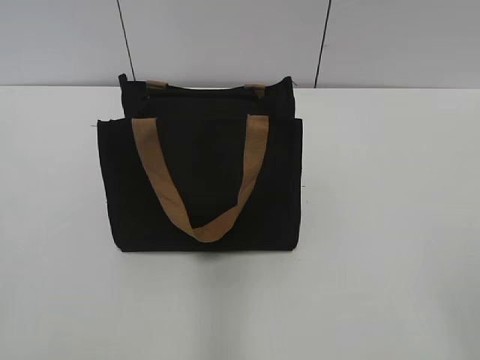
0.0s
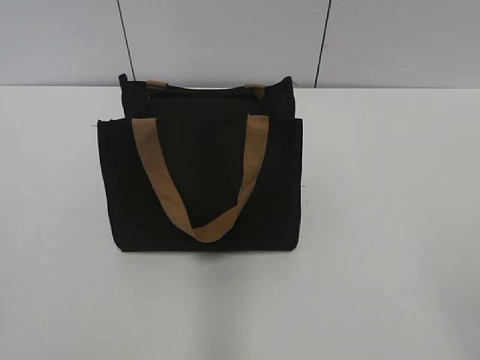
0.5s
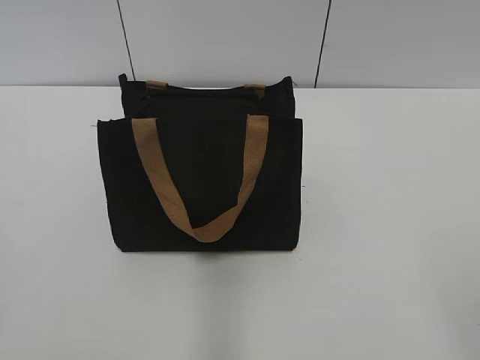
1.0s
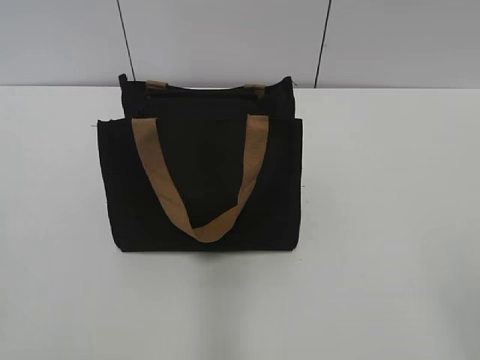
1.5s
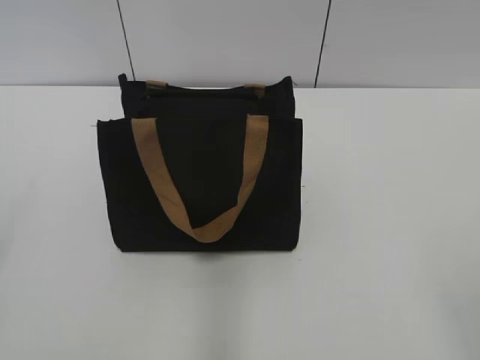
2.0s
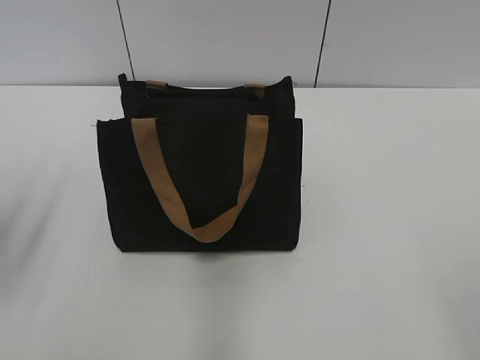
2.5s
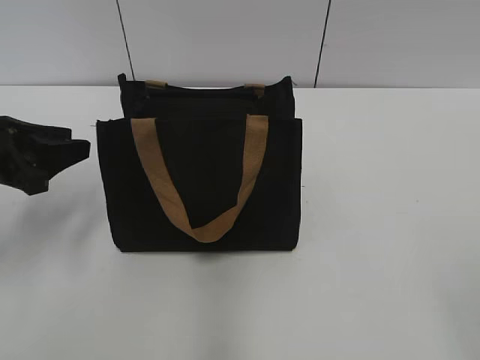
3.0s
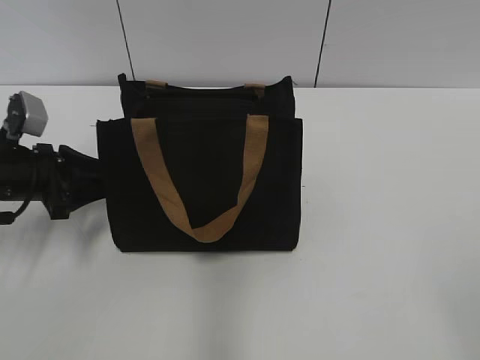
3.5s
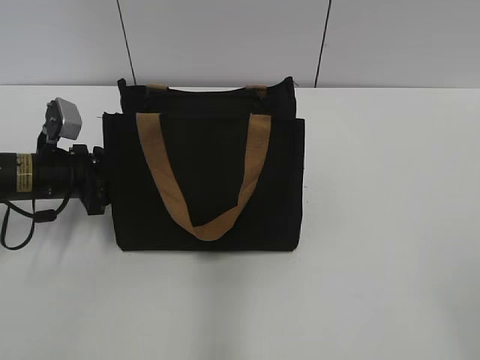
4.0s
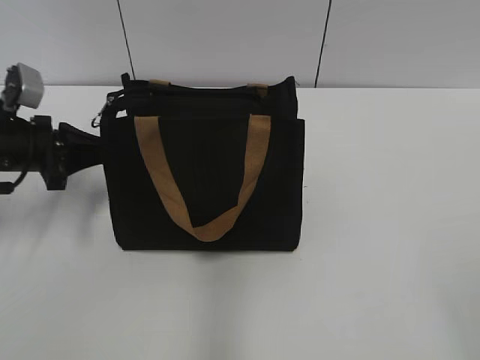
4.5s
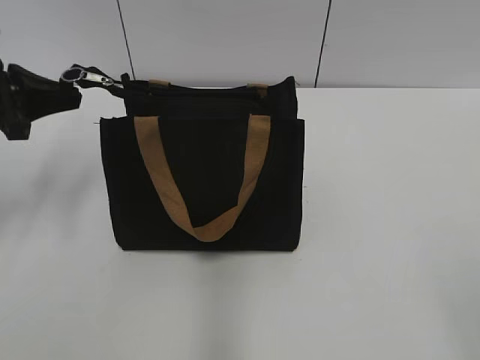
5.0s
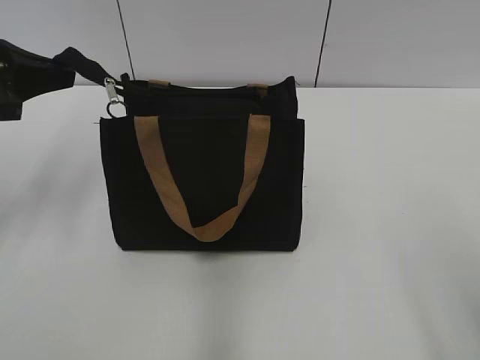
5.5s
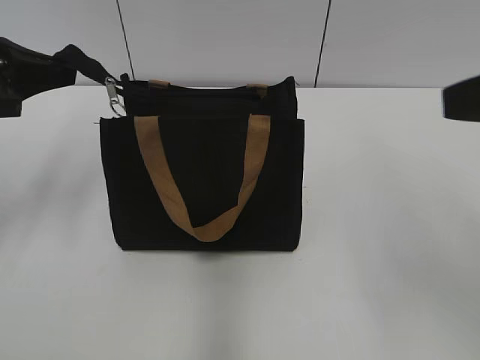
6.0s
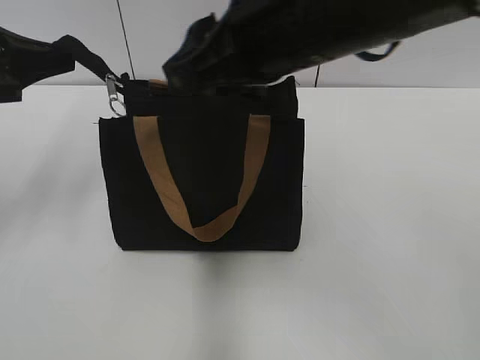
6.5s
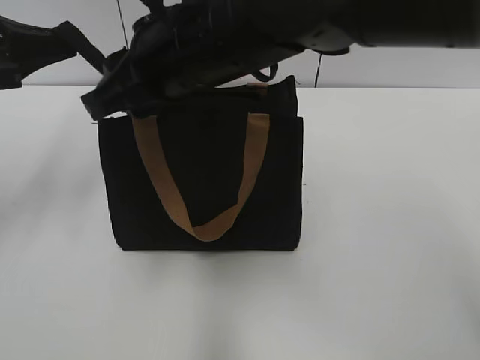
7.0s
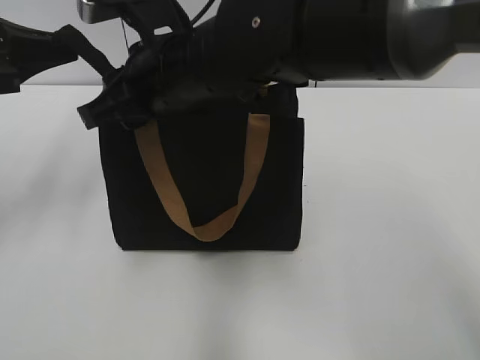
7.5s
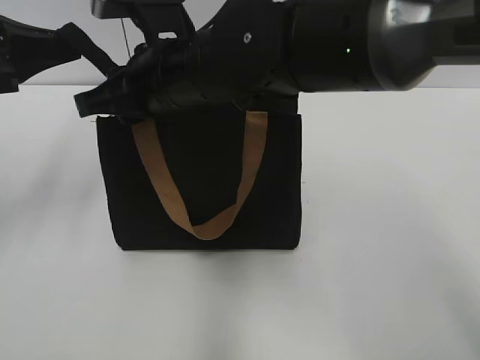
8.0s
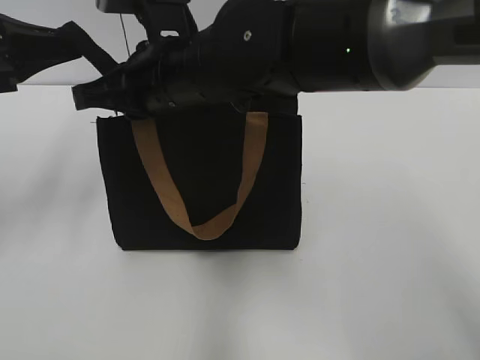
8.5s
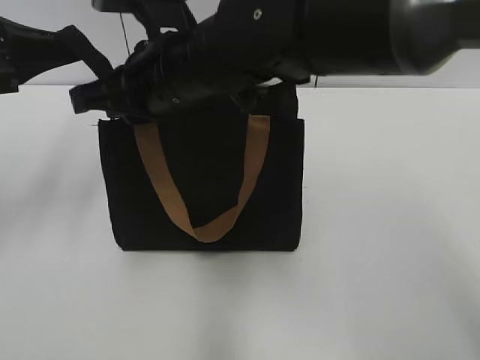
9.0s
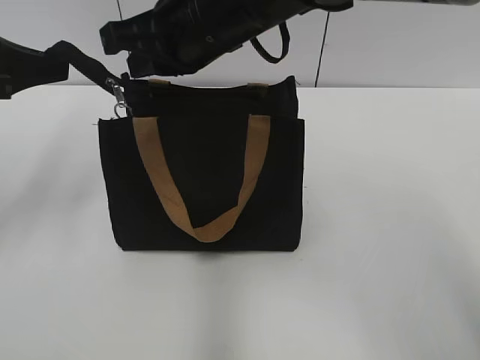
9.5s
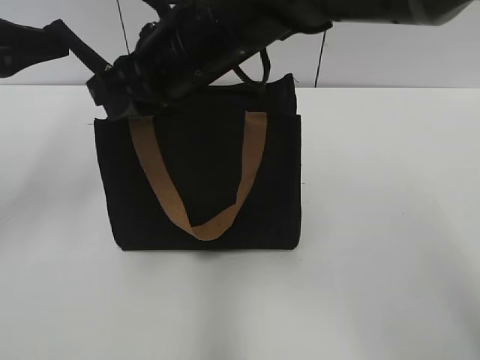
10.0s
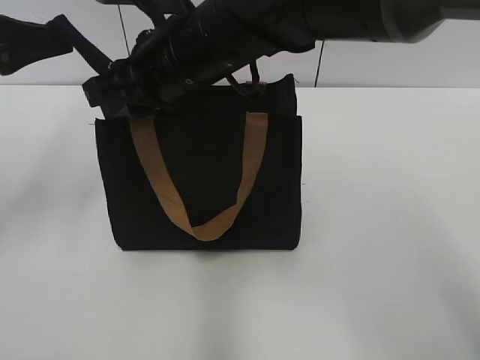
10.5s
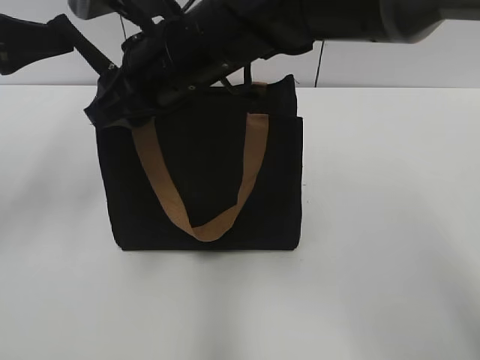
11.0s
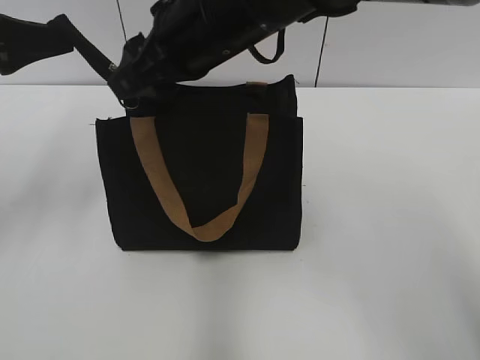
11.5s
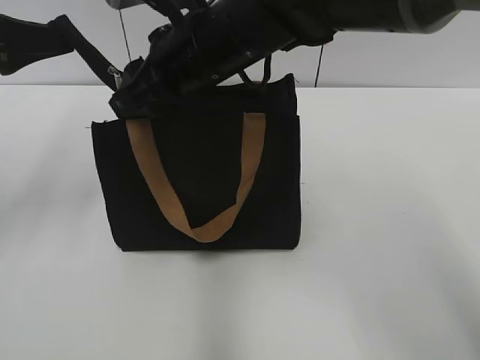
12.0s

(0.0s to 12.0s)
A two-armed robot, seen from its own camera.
2.0s - 4.0s: The left gripper heads forward and downward, covering approximately 35 cm, and closes up.
4.0s - 6.0s: The right gripper heads forward and upward, covering about 20 cm, while the left gripper goes about 15 cm upward, and closes.
6.0s - 8.0s: The right gripper travels to the left and forward by about 30 cm, and closes.
8.0s - 10.0s: There are only small adjustments of the grippers.
10.0s - 12.0s: The grippers move only a little.

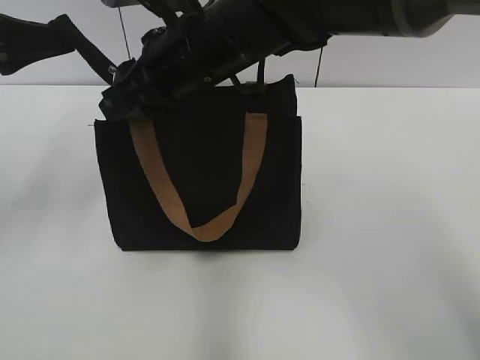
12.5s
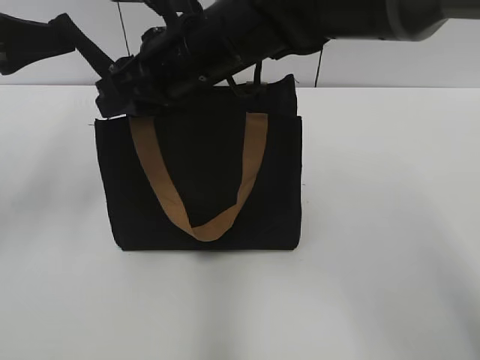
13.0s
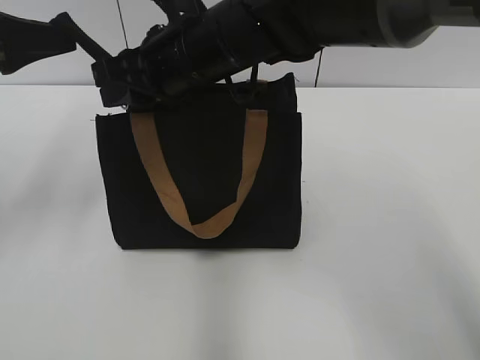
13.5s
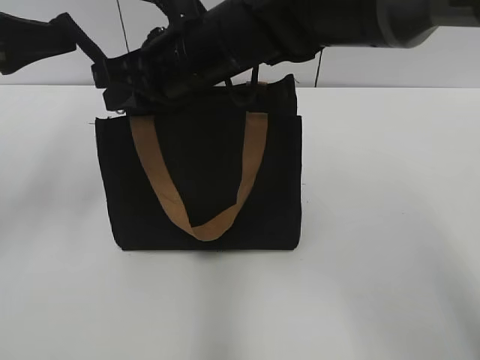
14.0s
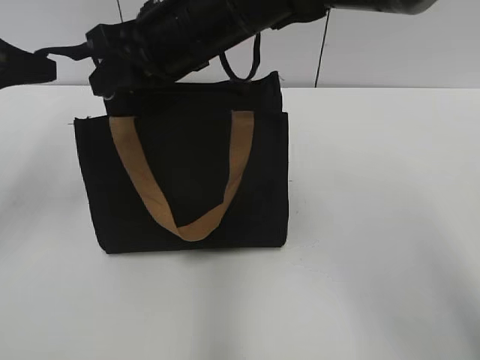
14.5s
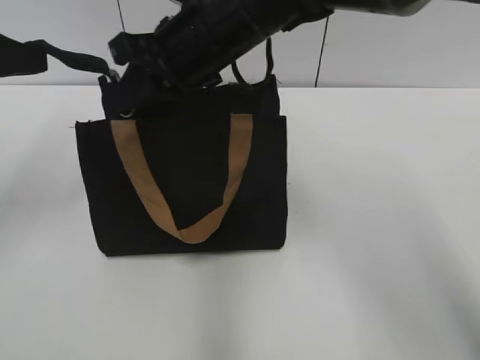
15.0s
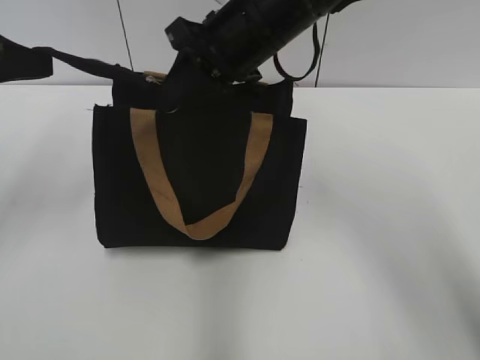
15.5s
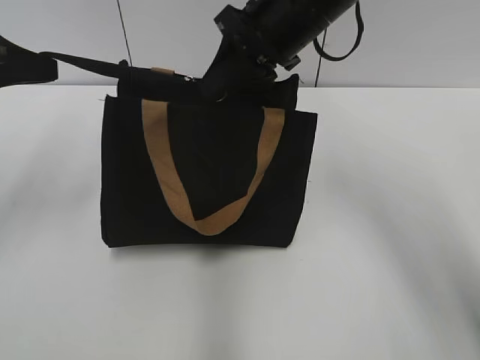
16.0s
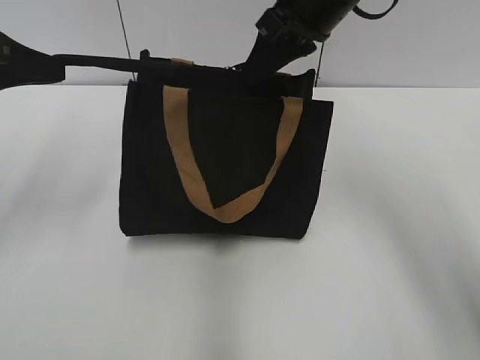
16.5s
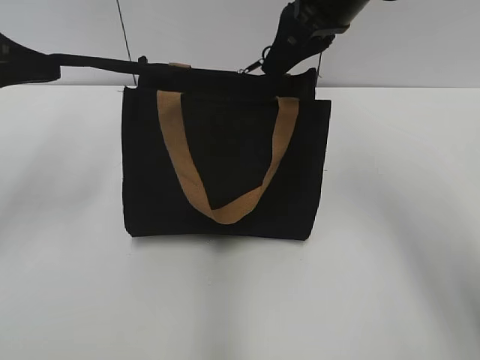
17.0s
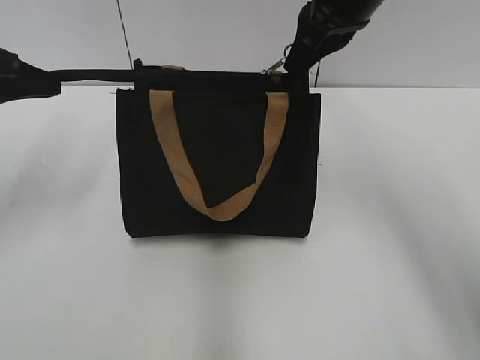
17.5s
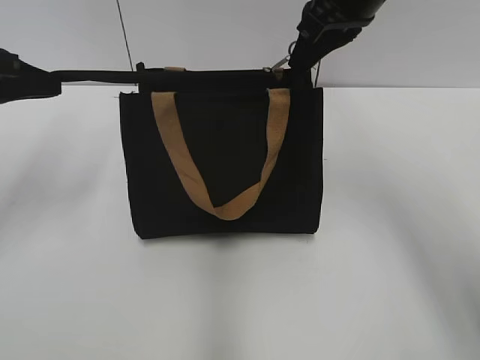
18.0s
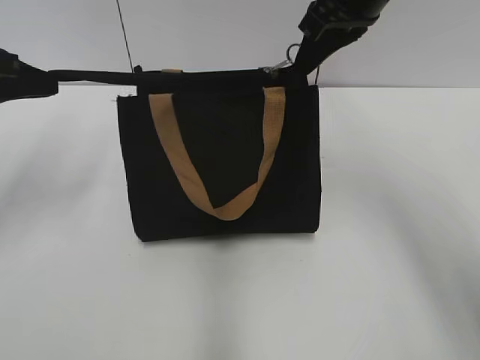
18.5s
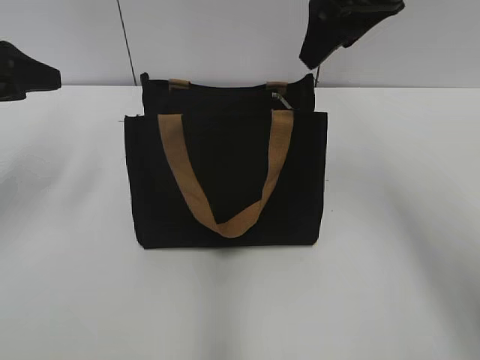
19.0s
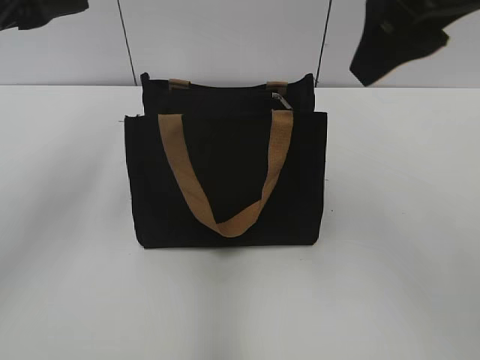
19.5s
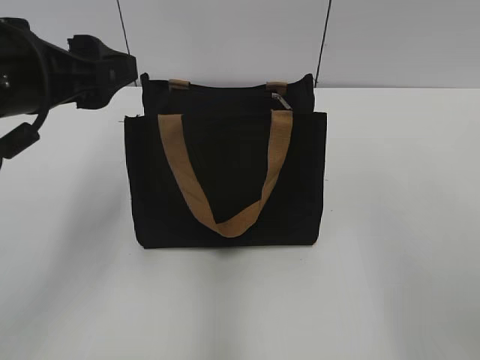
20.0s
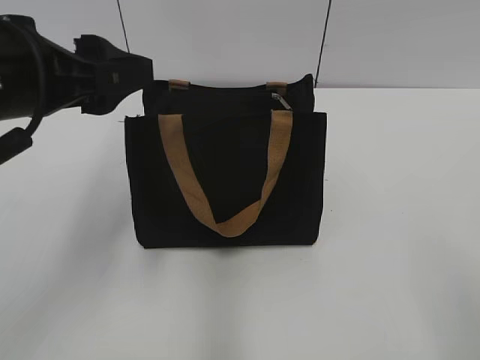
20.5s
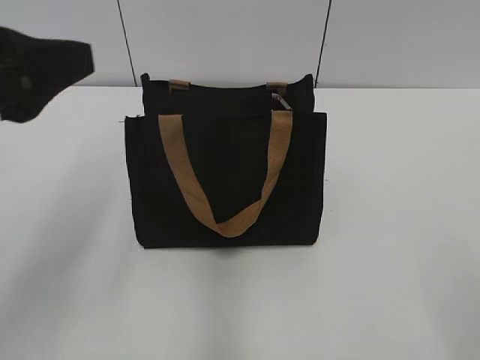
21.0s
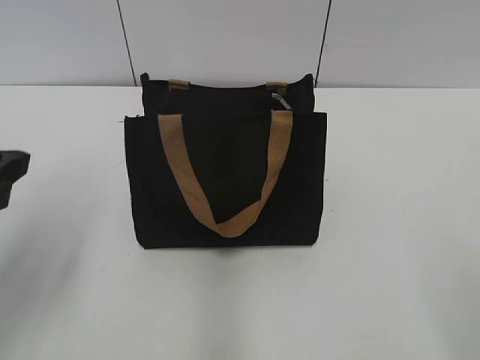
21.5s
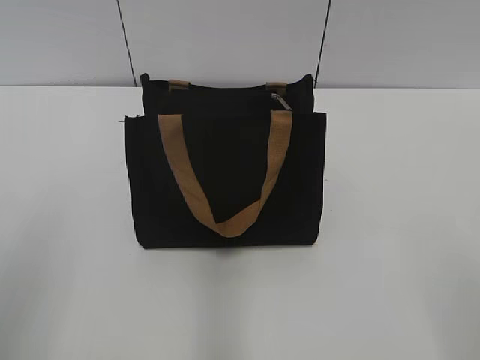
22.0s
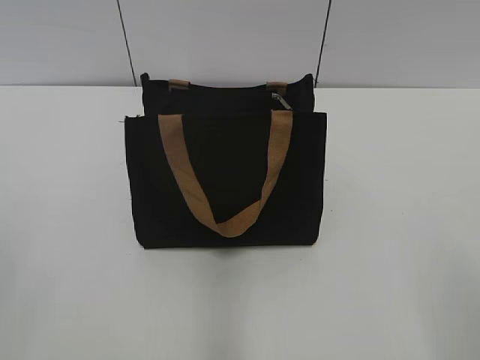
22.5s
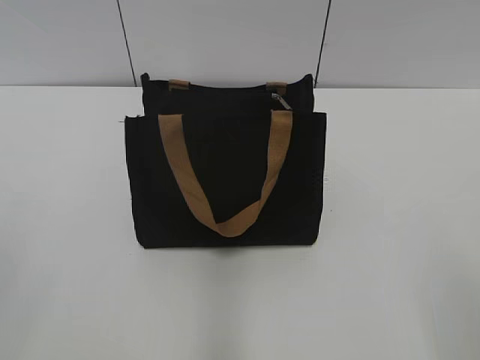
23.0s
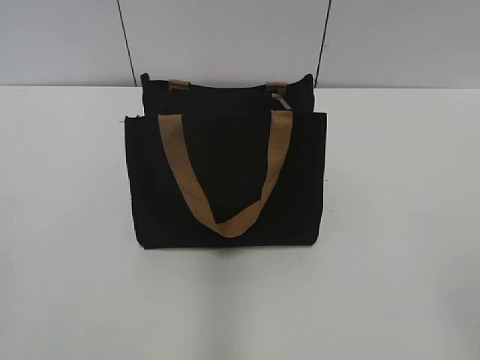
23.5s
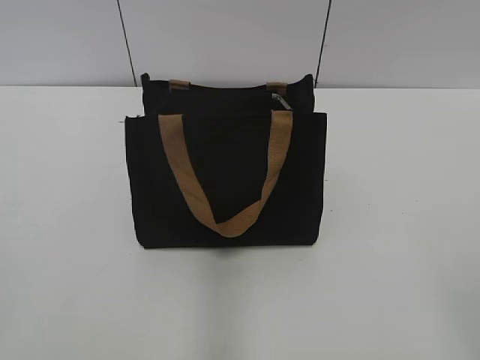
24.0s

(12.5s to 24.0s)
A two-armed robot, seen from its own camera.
Step, 12.5s - 18.5s: Zip up the bag with your right hand.
14.5s - 16.5s: The right gripper heads to the right, covering roughly 10 cm.
16.5s - 18.5s: There are only small adjustments of the grippers.
18.5s - 20.0s: The left gripper goes about 15 cm to the right and backward, and opens up; the right gripper heads backward, covering roughly 25 cm, and opens its fingers.
20.0s - 22.0s: The left gripper shifts about 15 cm backward and to the left.
22.0s - 24.0s: The left gripper goes roughly 10 cm backward and to the left.

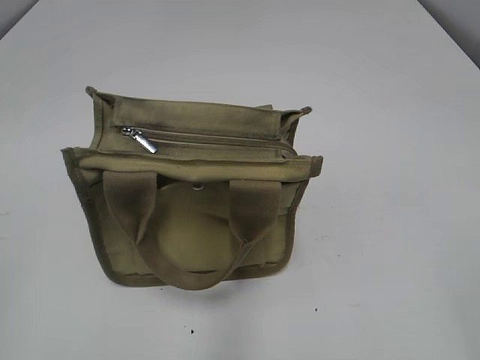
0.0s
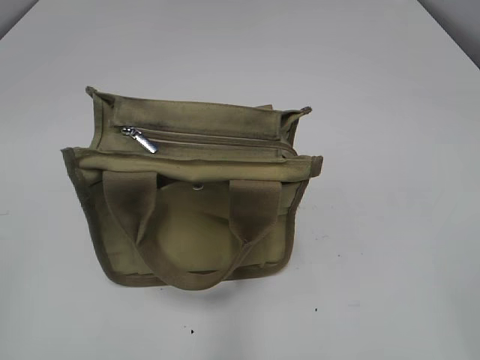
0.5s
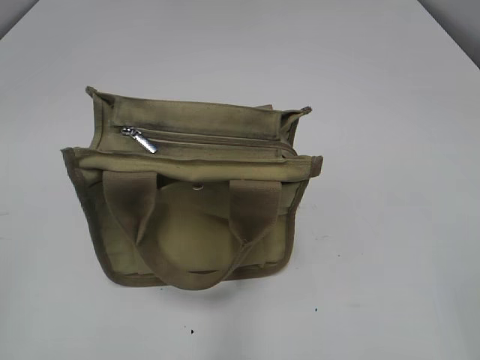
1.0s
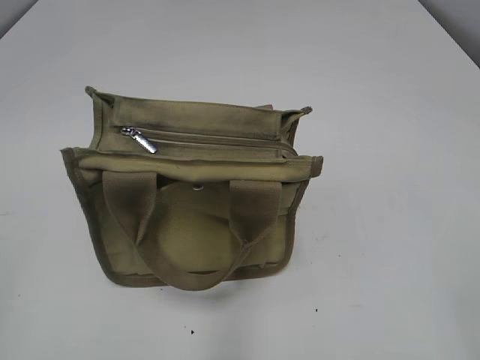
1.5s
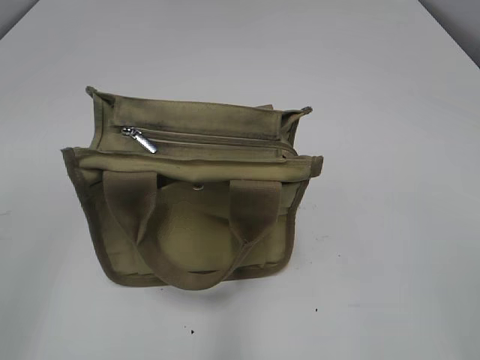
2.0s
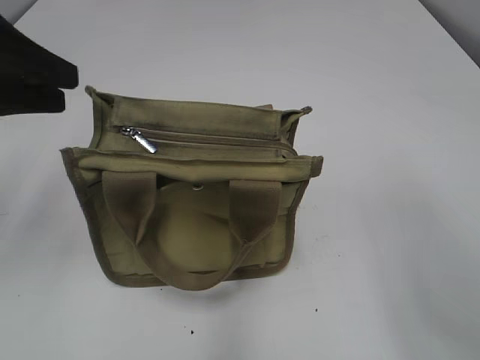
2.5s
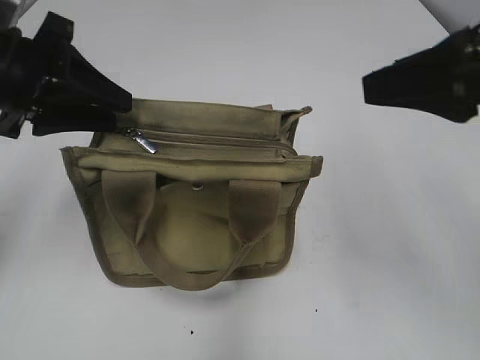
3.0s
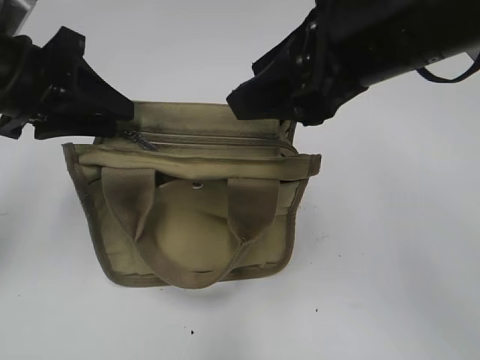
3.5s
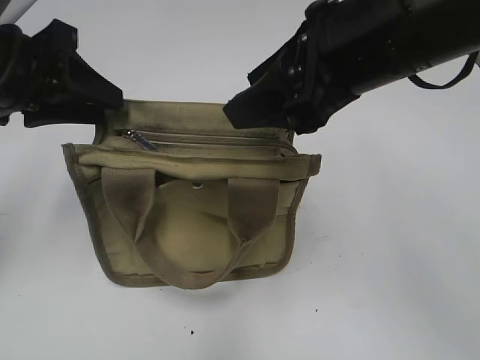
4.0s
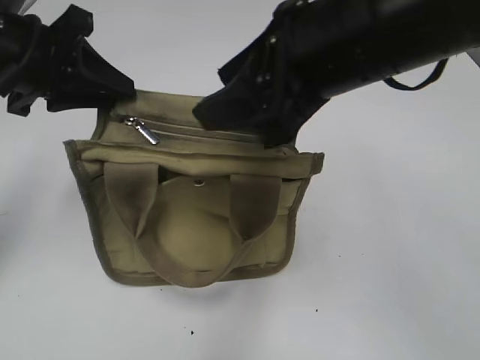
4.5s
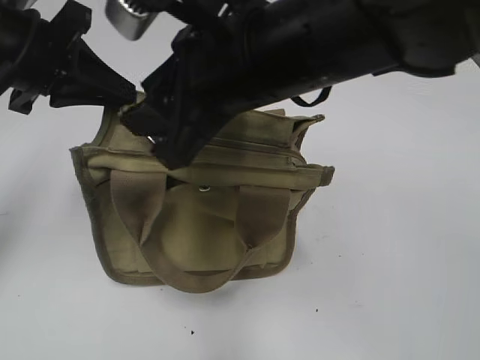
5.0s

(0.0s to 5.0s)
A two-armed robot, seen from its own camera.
2.5s - 5.0s: The right gripper moves to the left and forward, about 25 cm. Meanwhile the left gripper heads forward, covering some 5 cm, and closes its fingers.
